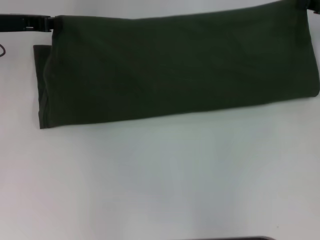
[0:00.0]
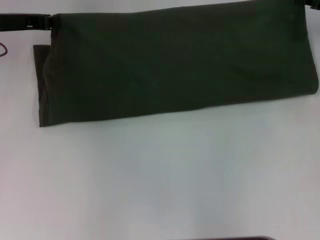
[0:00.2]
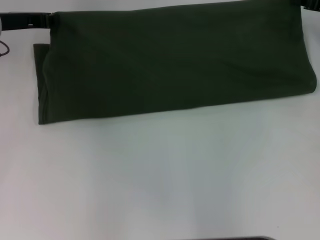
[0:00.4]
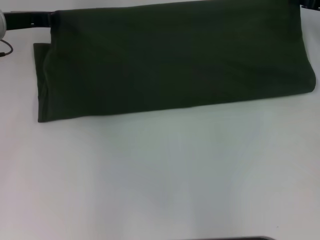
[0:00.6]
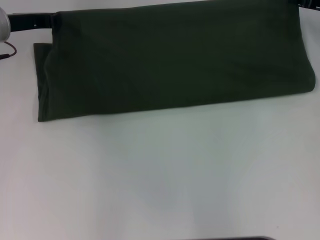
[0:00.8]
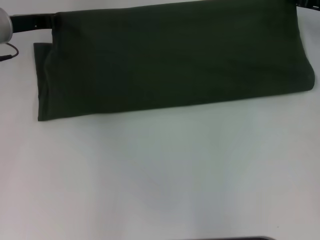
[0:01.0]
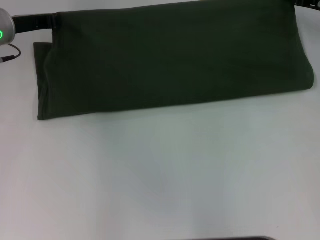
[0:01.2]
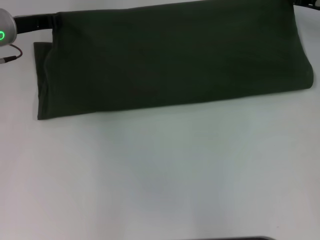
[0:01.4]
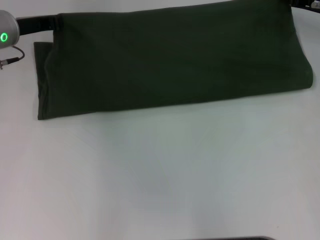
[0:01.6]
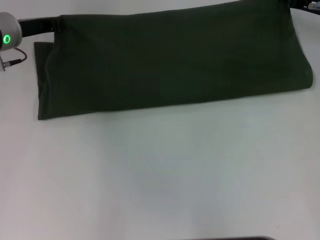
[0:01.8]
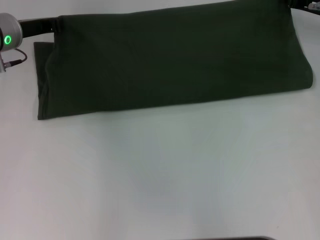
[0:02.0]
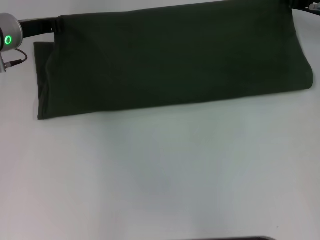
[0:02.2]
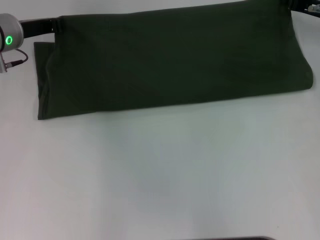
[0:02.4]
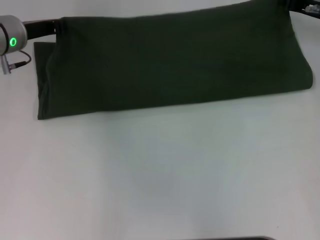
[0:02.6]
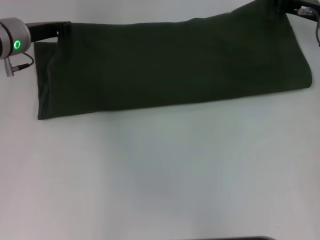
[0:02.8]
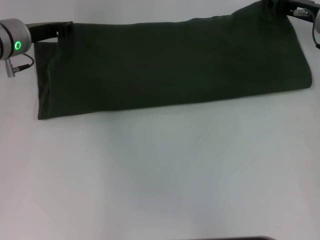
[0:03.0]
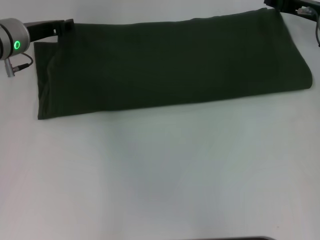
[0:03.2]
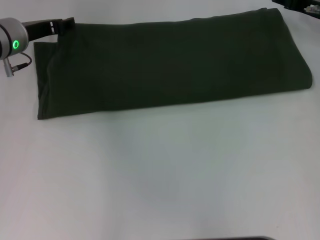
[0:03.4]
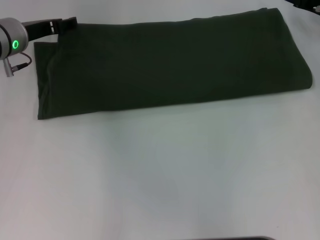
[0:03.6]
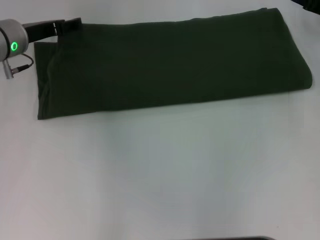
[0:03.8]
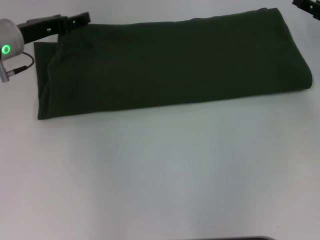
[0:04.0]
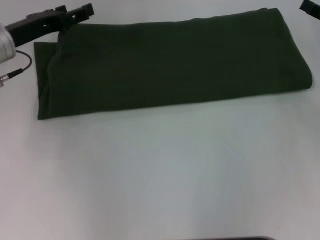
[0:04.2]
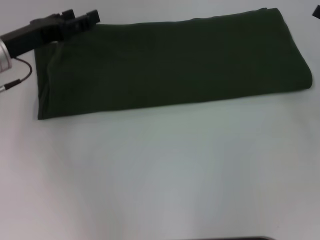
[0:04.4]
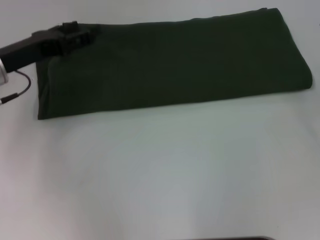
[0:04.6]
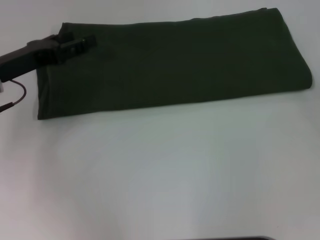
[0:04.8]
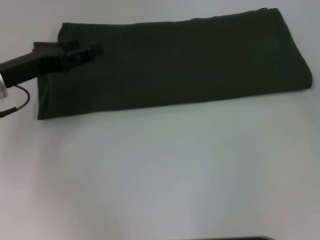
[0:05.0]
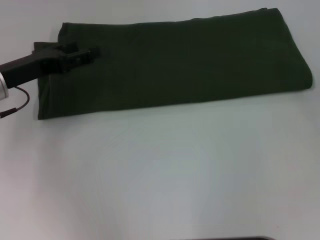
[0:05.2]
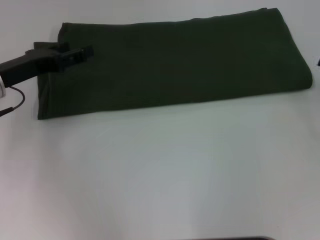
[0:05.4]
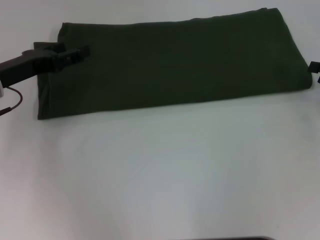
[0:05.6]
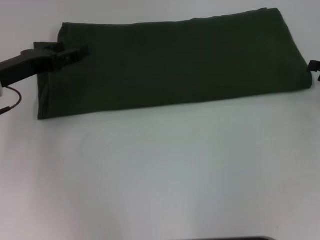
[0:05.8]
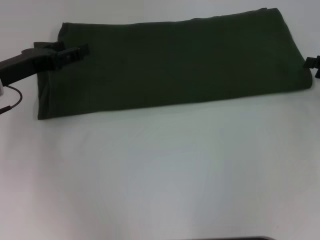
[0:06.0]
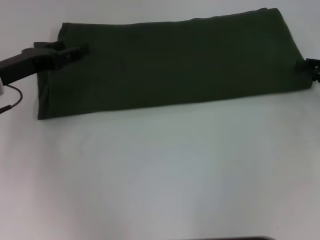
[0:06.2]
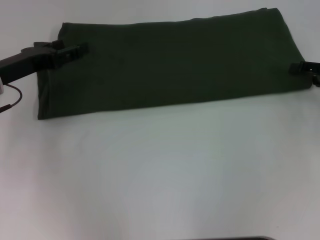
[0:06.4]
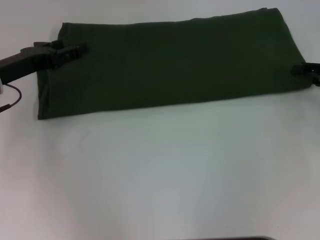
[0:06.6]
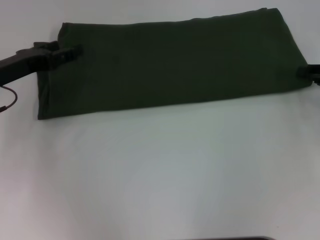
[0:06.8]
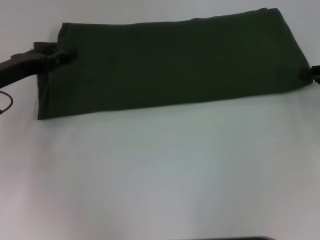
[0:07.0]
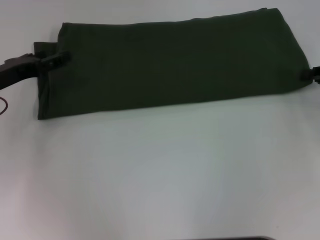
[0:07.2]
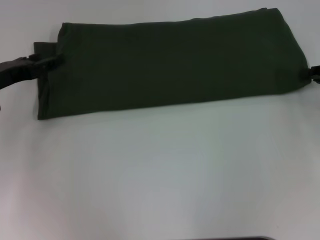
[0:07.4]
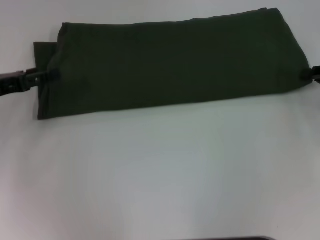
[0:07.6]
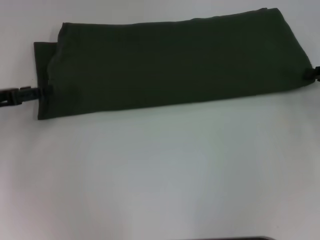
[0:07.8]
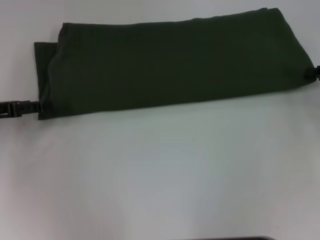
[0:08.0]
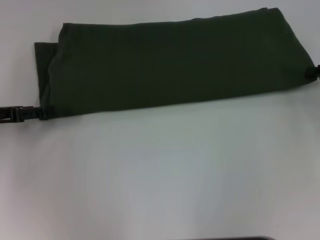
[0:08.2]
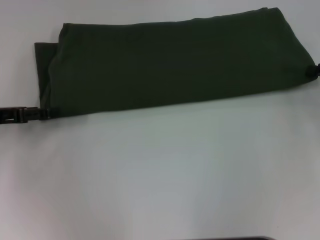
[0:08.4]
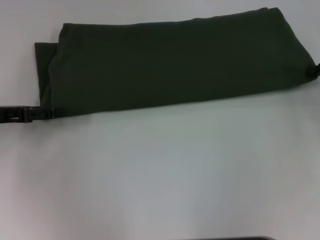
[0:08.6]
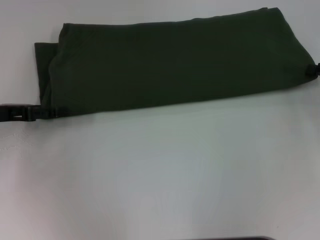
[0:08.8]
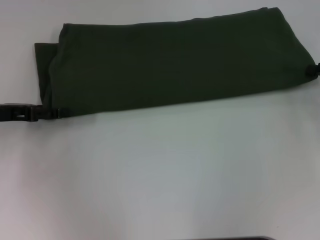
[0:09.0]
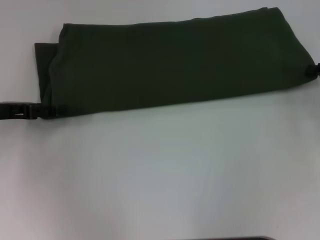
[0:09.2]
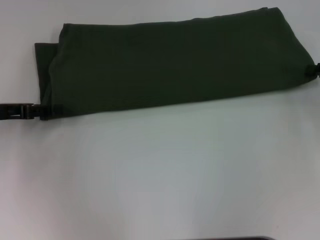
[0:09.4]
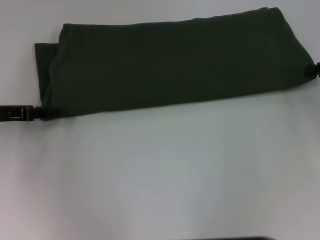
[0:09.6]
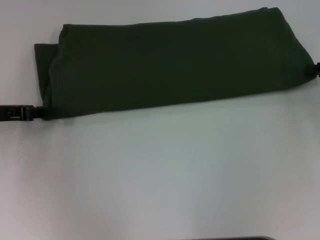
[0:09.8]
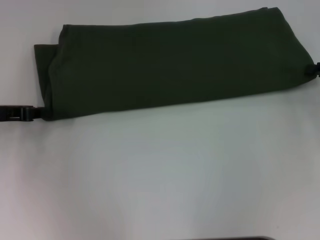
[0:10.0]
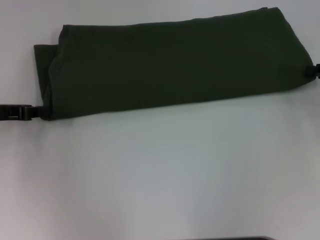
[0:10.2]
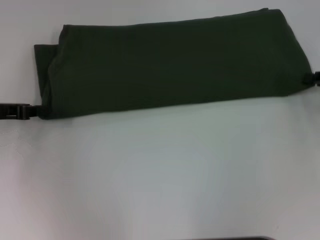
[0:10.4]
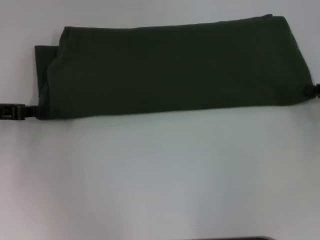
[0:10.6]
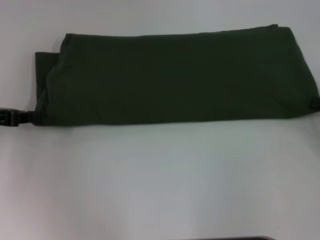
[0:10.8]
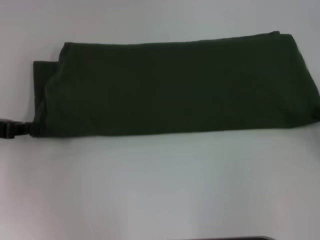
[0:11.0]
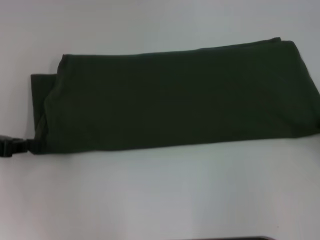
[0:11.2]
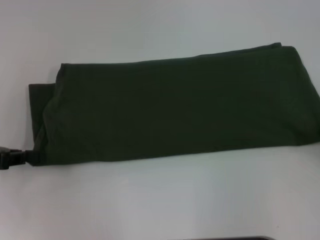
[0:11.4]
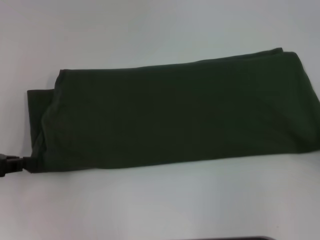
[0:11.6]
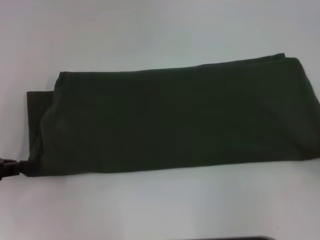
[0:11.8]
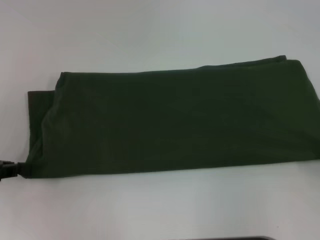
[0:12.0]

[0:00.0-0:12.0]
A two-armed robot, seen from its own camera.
Step, 0:00.0 to 0:04.4: Fold the clothes with your right hand.
0:00.0 to 0:01.6: The right gripper moves some 5 cm.
0:01.6 to 0:03.0: The grippers stay close to where they were, moving slightly.
0:03.0 to 0:04.4: The left gripper travels backward by approximately 5 cm, and opens. Meanwhile the right gripper travels backward and to the right by roughly 15 cm, and opens up.
0:06.0 to 0:07.6: The left gripper moves about 5 cm.
0:07.6 to 0:09.0: The grippers stay close to where they were, moving slightly.
0:09.0 to 0:10.4: The left gripper closes its fingers.
0:10.4 to 0:12.0: The right gripper shifts approximately 15 cm backward. Meanwhile the left gripper shifts some 5 cm backward.

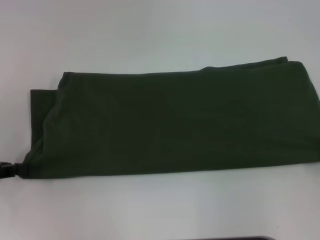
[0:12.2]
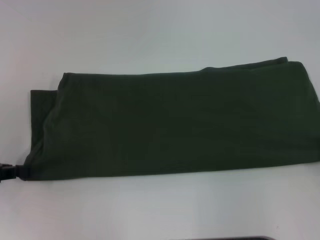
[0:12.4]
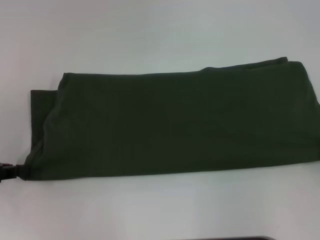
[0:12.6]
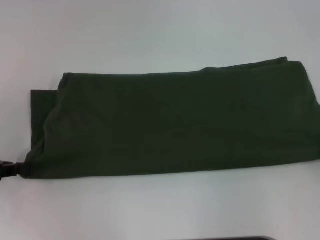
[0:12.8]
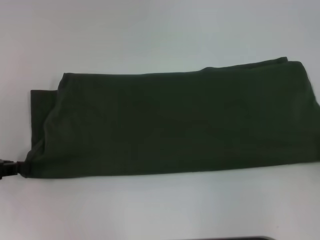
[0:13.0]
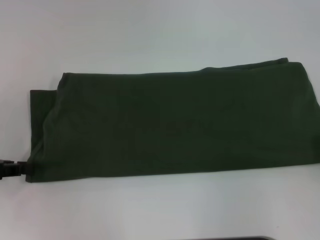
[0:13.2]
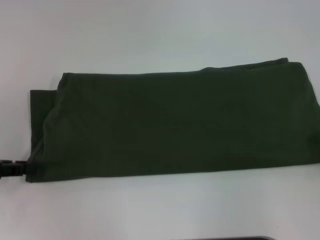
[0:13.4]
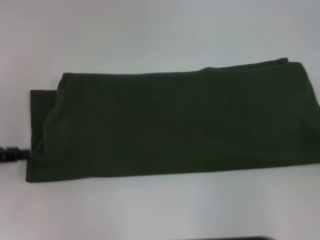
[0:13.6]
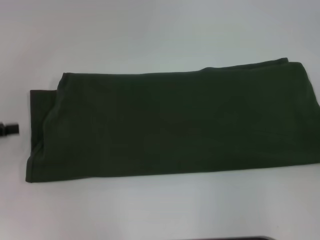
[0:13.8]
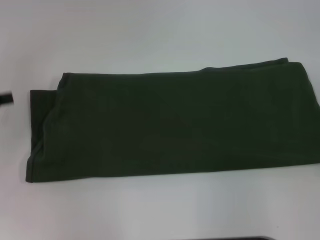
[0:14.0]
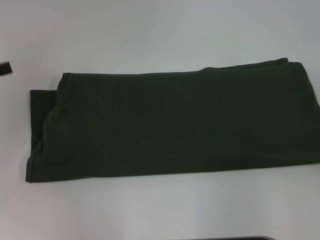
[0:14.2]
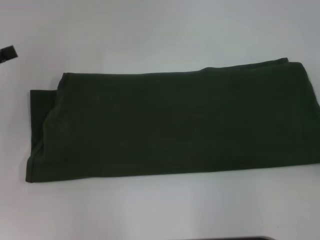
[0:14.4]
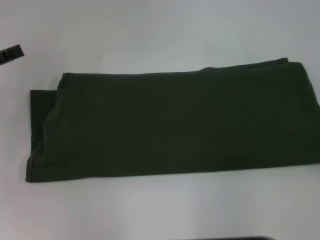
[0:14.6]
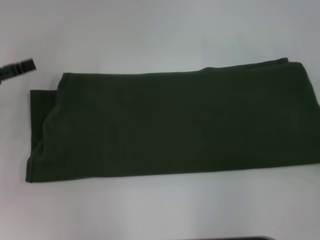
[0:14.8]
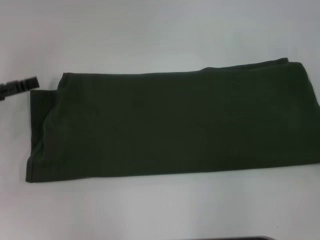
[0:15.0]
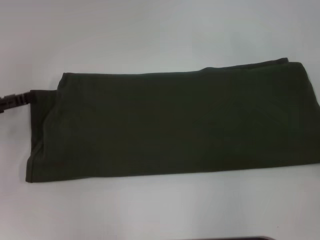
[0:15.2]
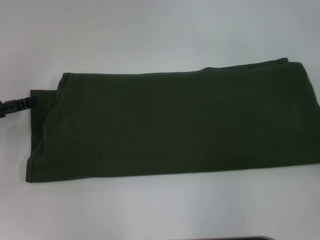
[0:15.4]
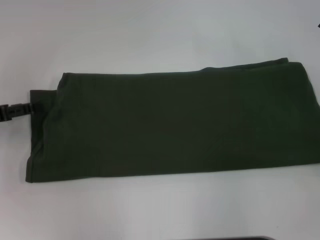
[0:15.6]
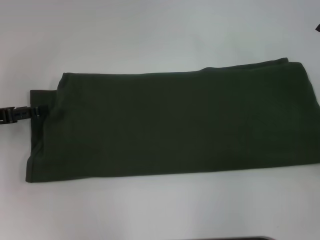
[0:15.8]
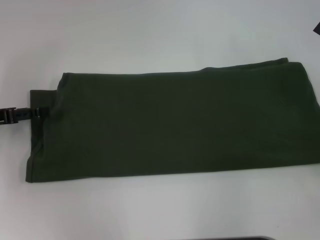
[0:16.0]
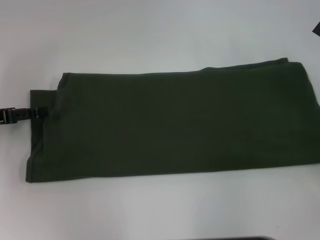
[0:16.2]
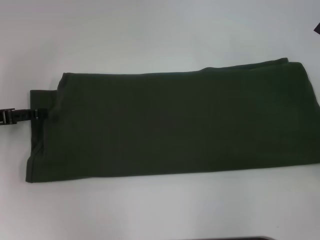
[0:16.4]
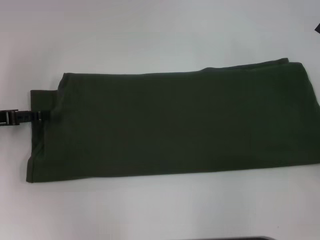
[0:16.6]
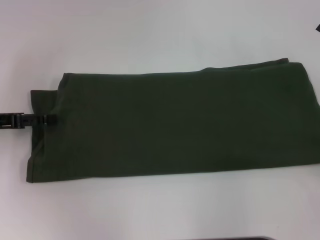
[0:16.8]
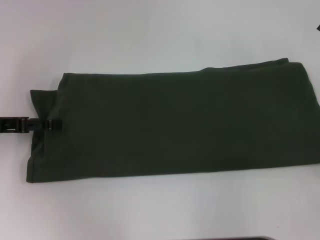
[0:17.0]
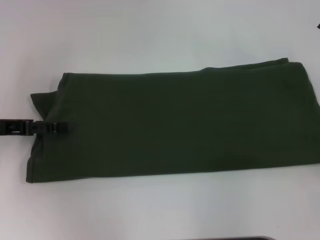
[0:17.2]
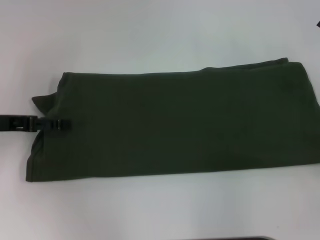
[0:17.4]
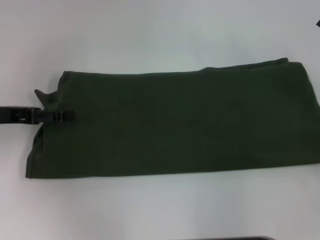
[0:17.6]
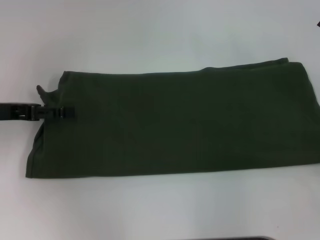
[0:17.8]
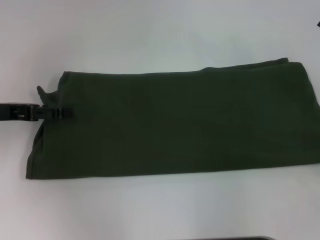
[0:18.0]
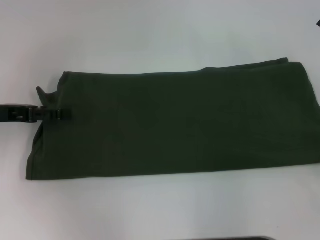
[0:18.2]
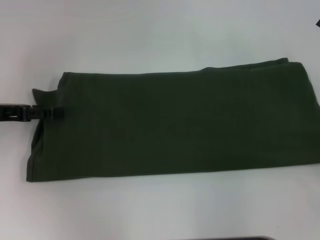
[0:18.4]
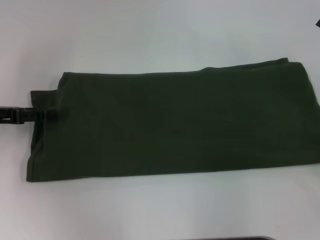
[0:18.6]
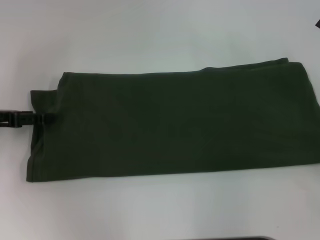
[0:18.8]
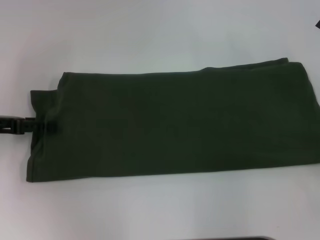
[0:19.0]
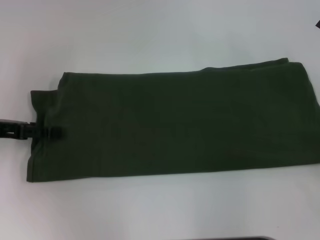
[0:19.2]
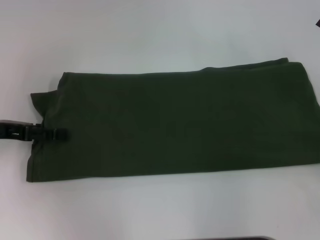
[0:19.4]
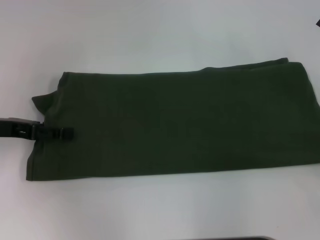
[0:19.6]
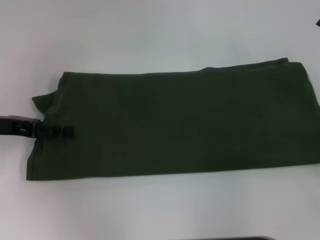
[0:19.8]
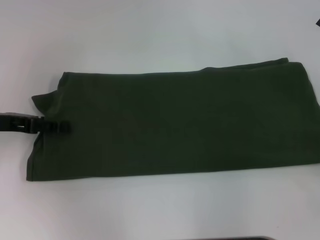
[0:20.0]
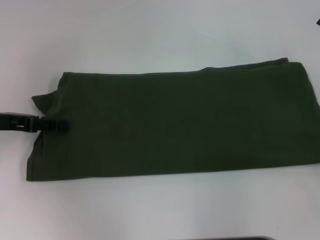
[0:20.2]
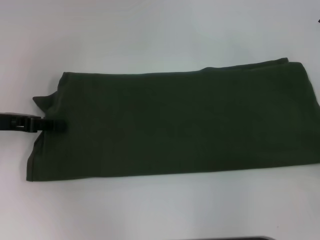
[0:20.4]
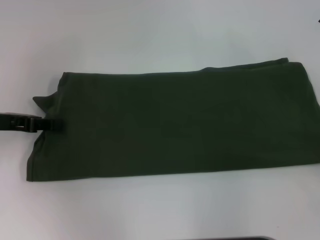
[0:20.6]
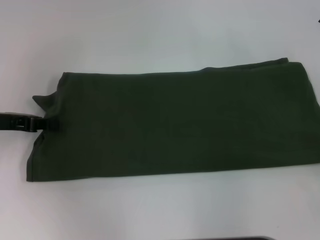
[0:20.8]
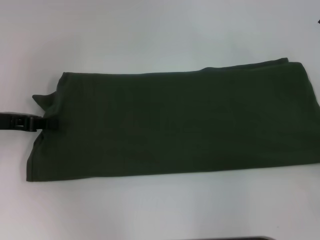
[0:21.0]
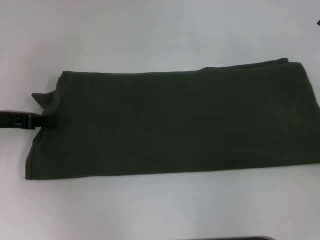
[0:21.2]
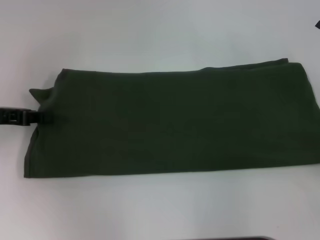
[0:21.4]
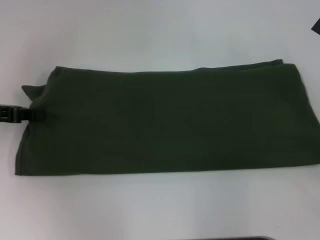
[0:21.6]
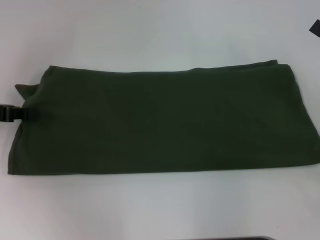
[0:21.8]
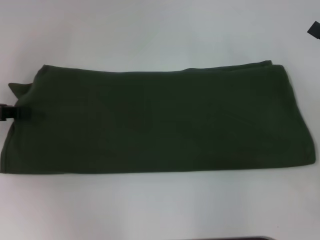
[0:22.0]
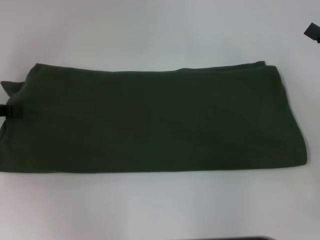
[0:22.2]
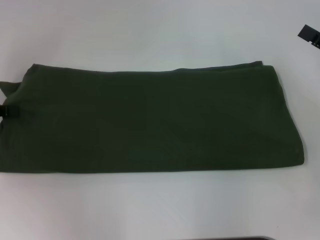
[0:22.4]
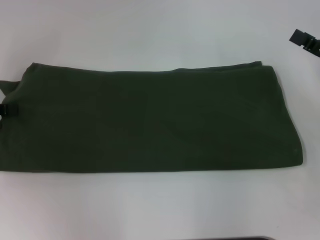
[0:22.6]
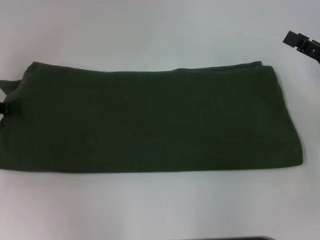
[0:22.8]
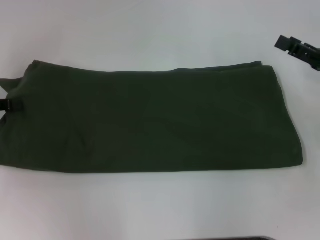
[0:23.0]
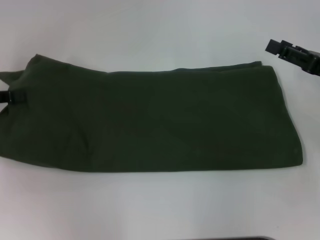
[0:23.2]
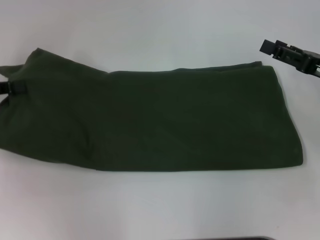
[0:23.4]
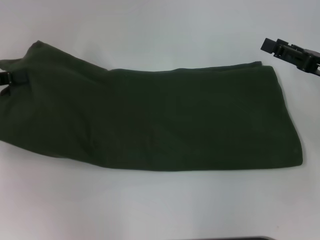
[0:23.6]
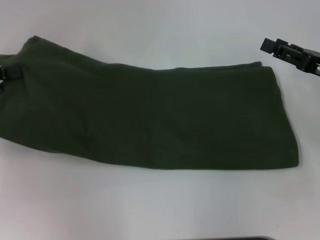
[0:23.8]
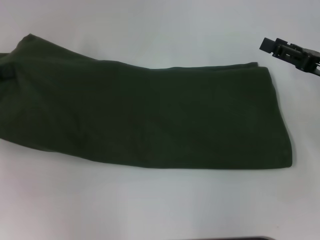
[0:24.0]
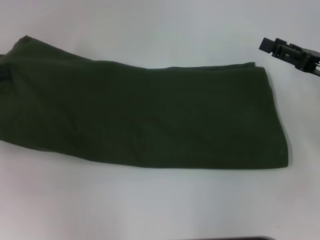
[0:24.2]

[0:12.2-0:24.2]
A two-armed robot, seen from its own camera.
0:12.2 to 0:13.8: The right gripper opens its fingers. The left gripper opens.
0:15.2 to 0:18.2: The grippers stay close to where they were, moving slightly.
0:18.2 to 0:19.8: There are only small adjustments of the grippers.
0:19.8 to 0:21.2: The left gripper closes up.
0:21.2 to 0:22.6: The left gripper travels to the left by approximately 5 cm.
0:22.6 to 0:24.2: The grippers make only small movements.
